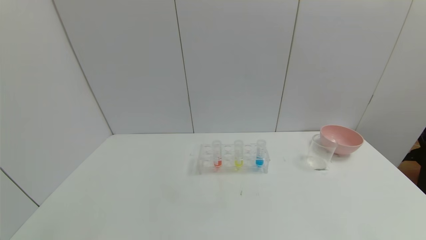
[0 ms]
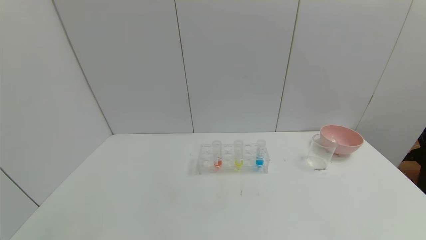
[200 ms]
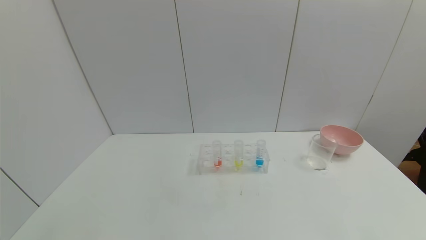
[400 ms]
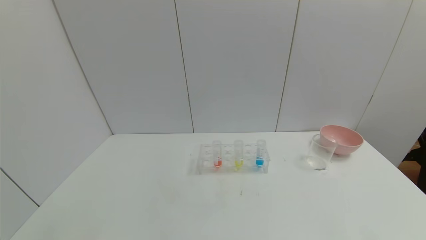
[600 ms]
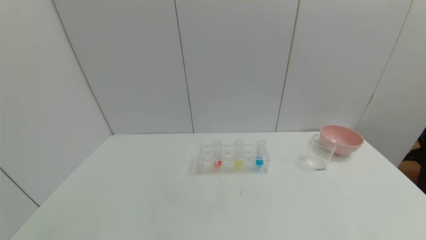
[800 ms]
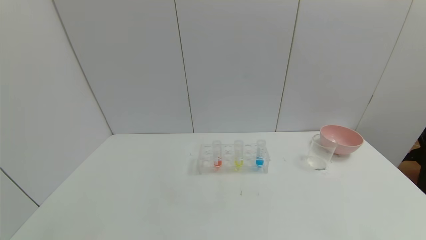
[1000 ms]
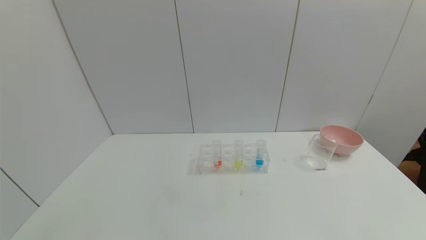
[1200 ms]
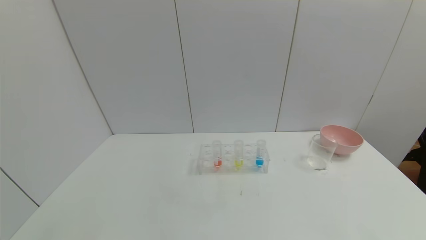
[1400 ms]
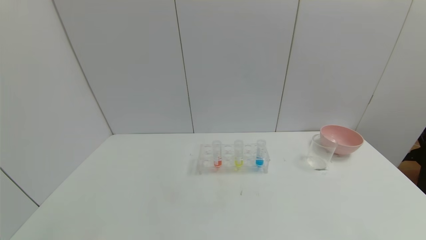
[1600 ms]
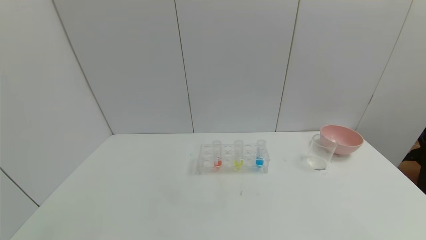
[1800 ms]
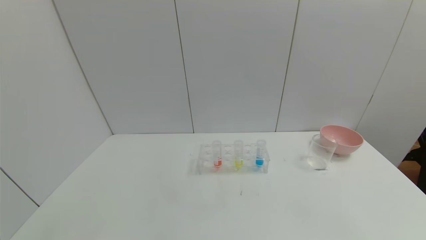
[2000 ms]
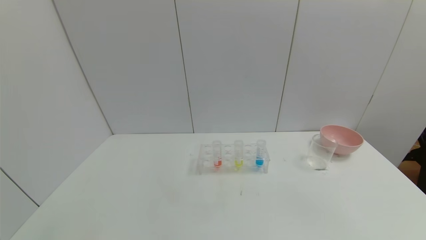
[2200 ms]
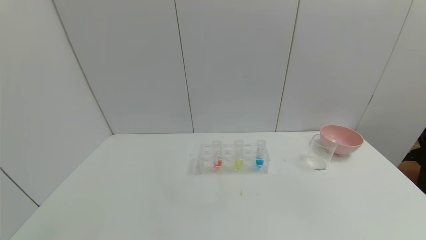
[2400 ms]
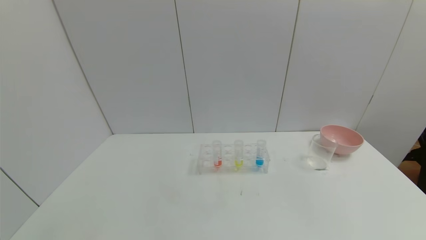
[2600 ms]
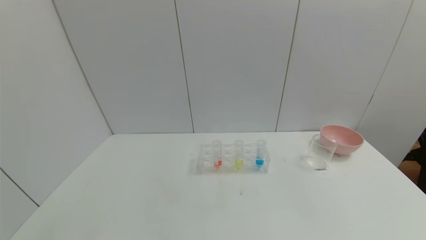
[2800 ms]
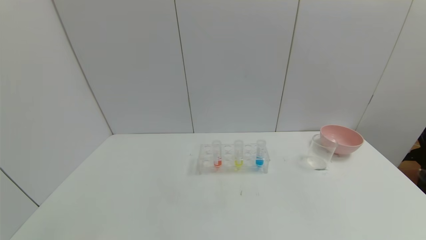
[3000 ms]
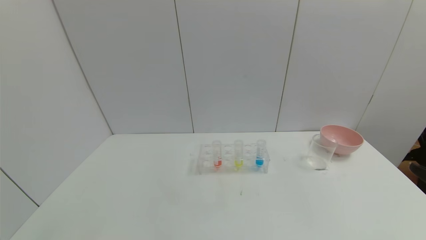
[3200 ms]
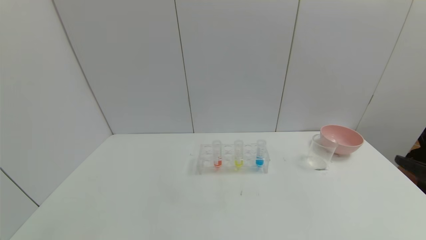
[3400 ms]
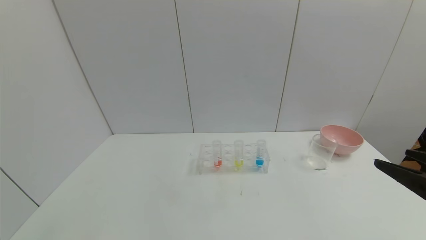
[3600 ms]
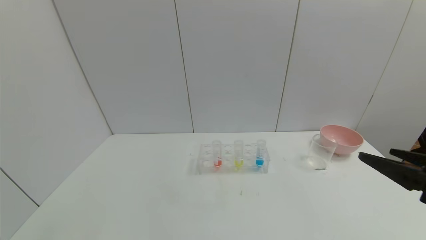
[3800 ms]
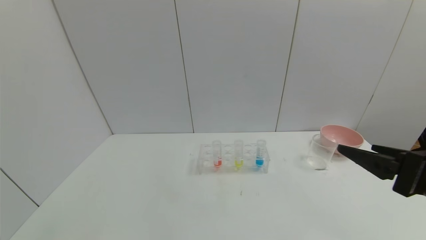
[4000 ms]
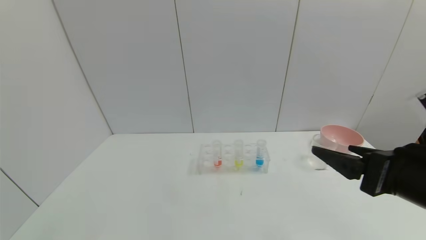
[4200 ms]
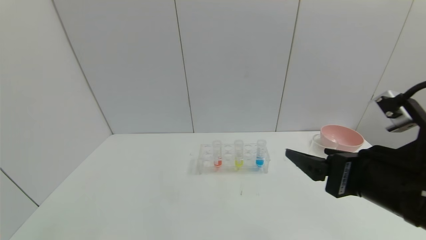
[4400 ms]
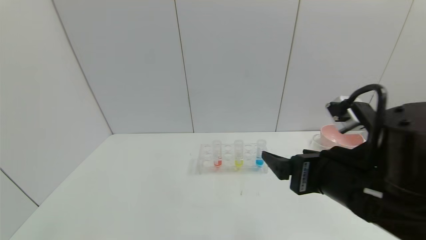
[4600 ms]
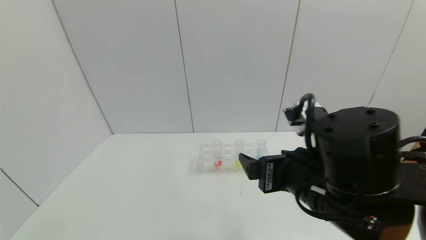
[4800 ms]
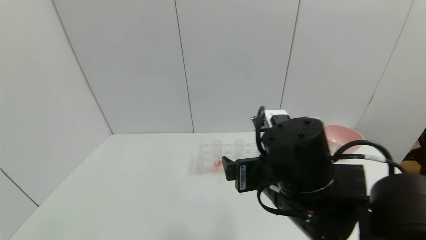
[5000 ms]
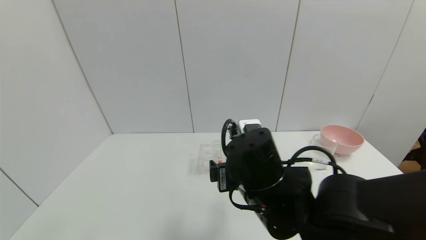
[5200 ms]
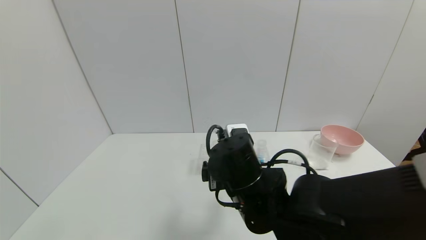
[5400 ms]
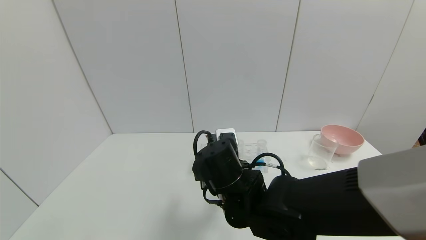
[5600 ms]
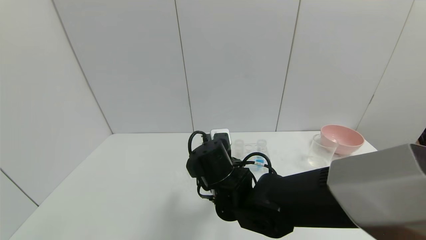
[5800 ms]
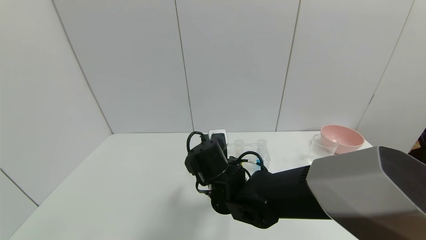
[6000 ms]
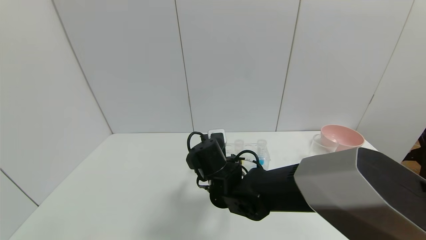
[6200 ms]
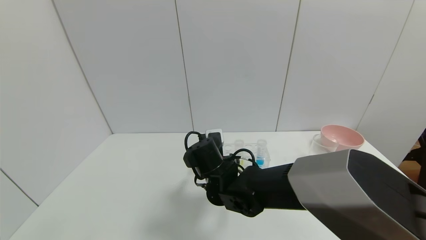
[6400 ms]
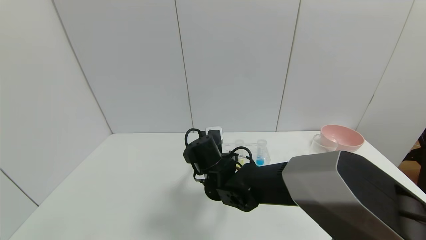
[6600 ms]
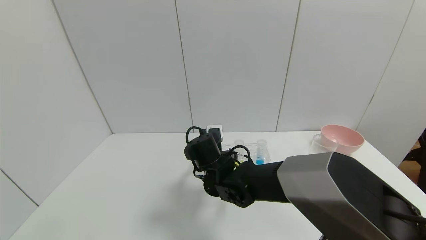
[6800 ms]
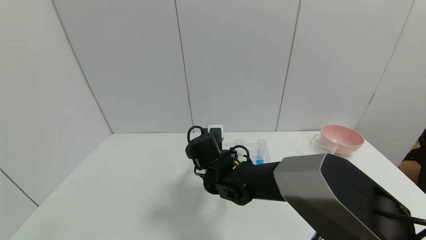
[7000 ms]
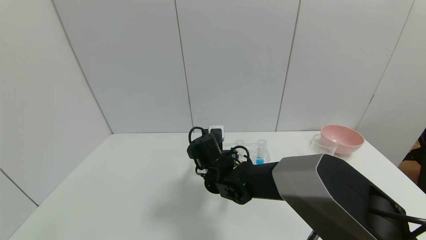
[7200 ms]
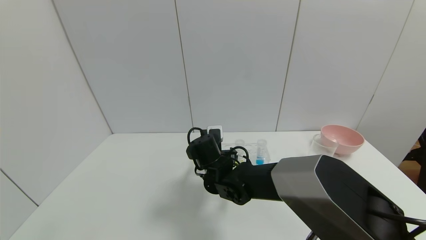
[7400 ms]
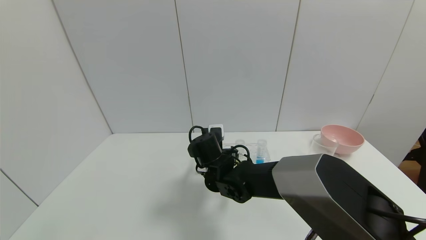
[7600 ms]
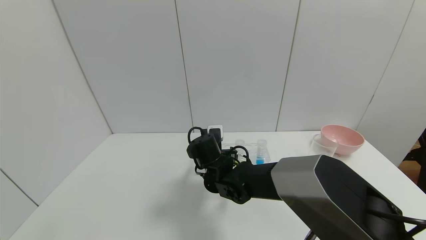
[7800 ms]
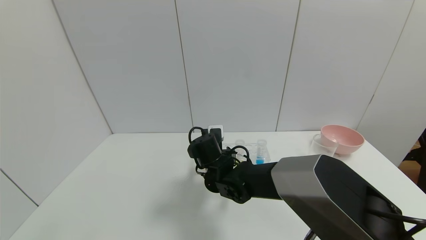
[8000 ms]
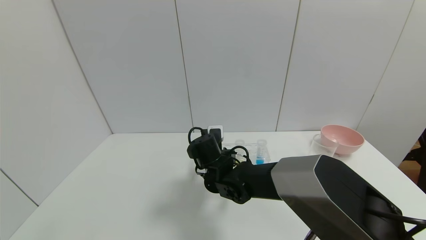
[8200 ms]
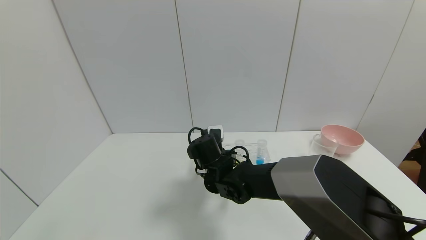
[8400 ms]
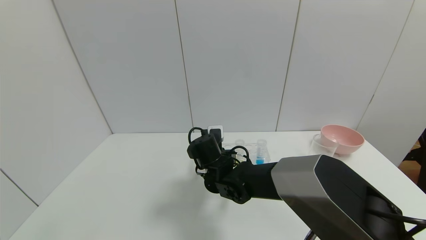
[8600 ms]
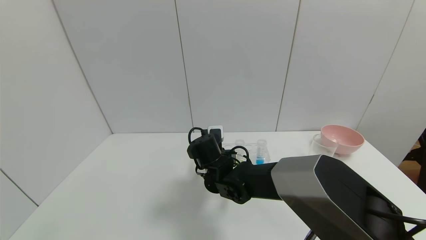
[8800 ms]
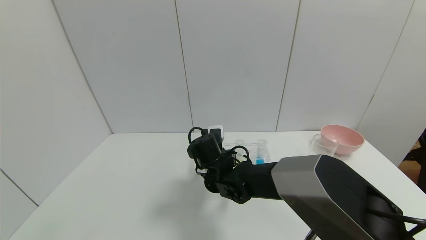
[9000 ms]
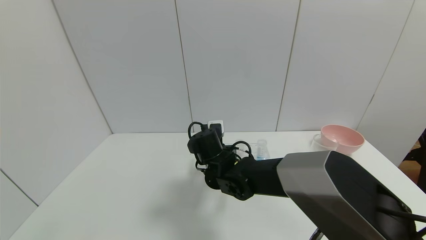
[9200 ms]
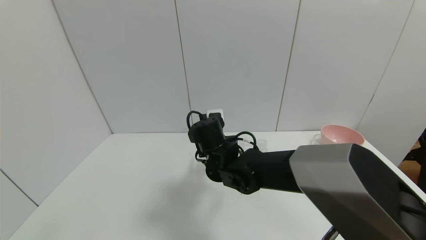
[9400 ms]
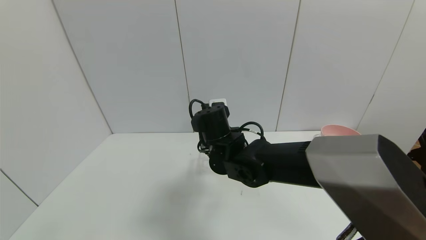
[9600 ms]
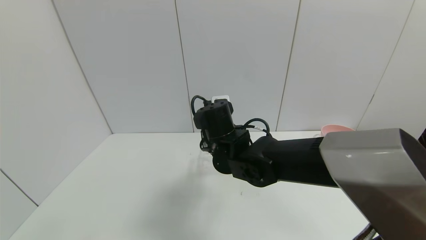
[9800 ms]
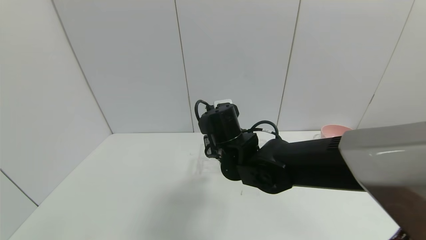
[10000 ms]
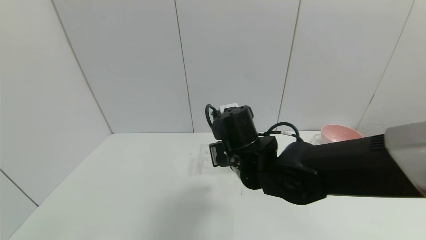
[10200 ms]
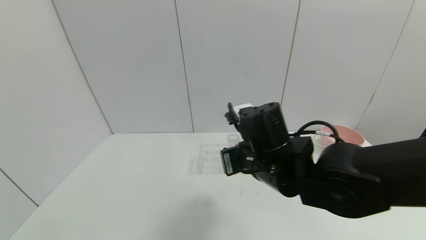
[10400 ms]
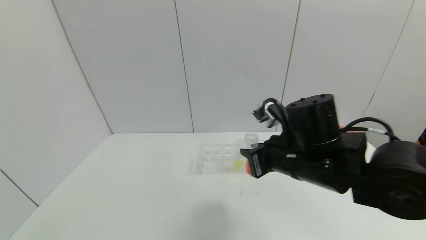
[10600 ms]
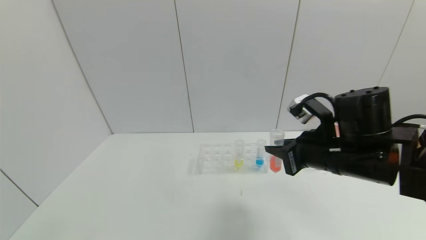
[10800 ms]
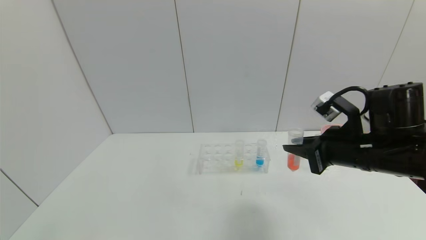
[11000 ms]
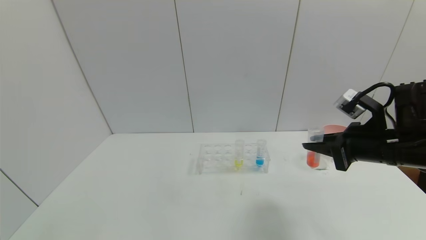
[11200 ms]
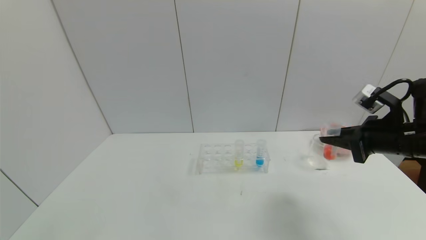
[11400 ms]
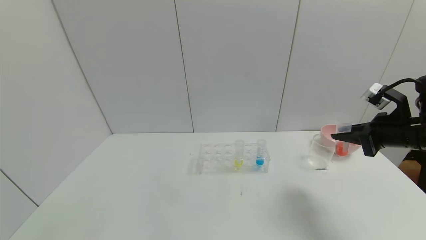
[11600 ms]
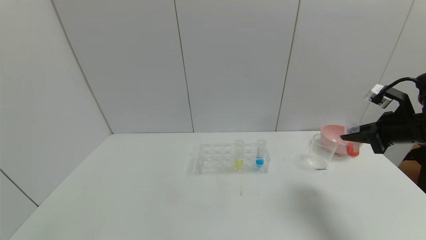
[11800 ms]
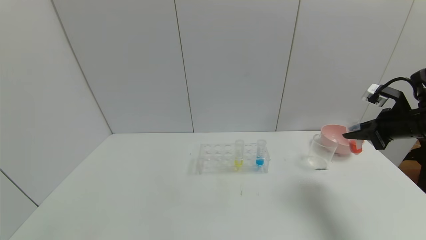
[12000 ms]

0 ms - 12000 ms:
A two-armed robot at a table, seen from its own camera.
Task of the whole recording: pick up the test tube with yellow pigment and the test tube with red pigment by grippers and pour them into the beaker.
Step, 0 ms - 11800 ms: Pick up the test tube containing the red reagent with right gripper.
0 ms - 1600 ms: The two grippers keep their place.
3000 ms - 4400 ms: The right gripper travels to the left and forward by about 15 cm.
4400 ms - 6000 ms: The right gripper shifts about 30 cm to the left, forward and downward.
6000 ms - 7600 ms: The right gripper heads forward, covering about 5 cm.
7600 ms - 9000 ms: The right gripper closes its fingers.
9000 ms - 10400 ms: The right gripper goes some 20 cm upward, to the right and backward.
10400 ms - 12000 ms: The right gripper heads to the right, covering roughly 30 cm.

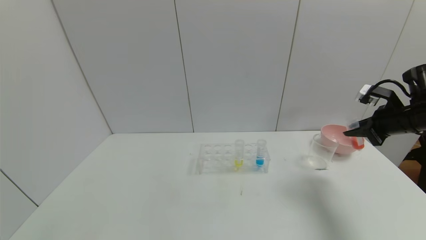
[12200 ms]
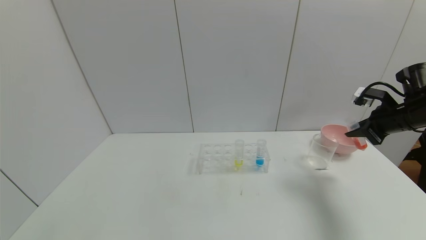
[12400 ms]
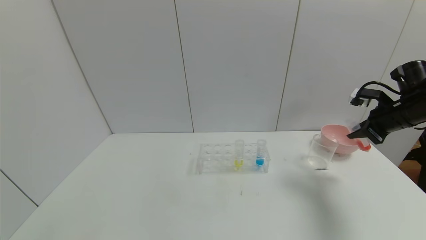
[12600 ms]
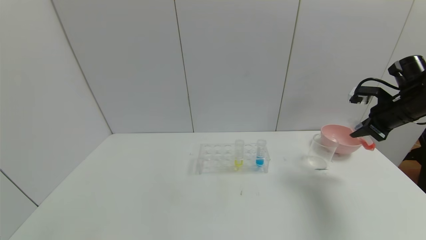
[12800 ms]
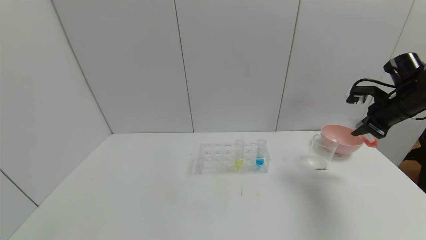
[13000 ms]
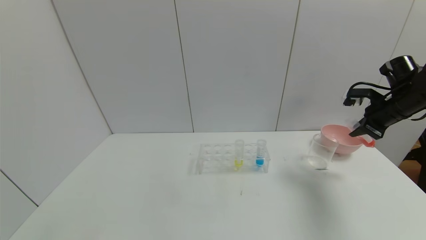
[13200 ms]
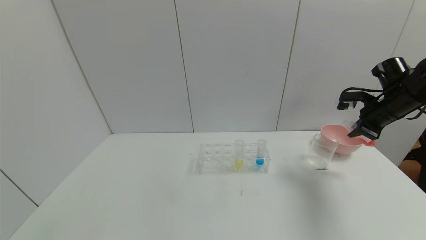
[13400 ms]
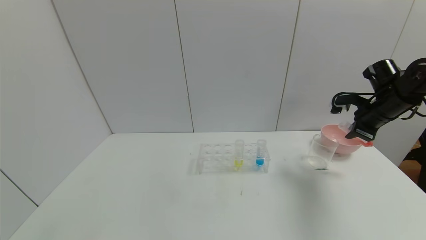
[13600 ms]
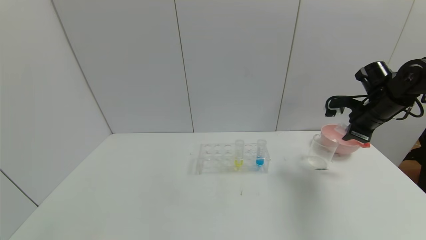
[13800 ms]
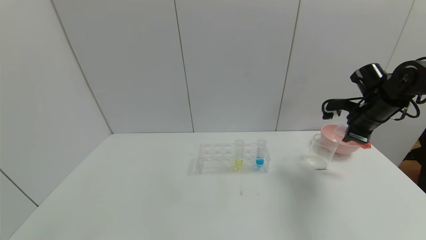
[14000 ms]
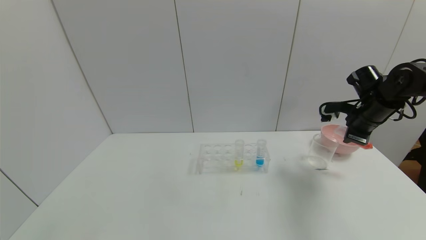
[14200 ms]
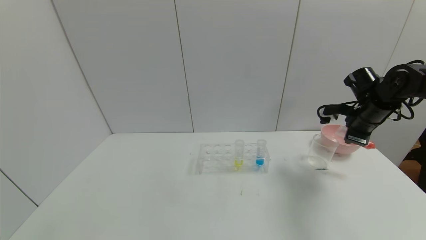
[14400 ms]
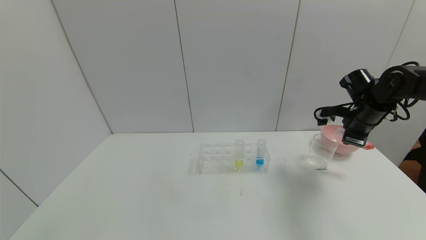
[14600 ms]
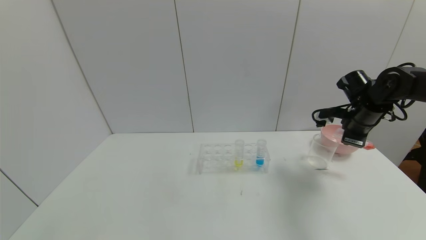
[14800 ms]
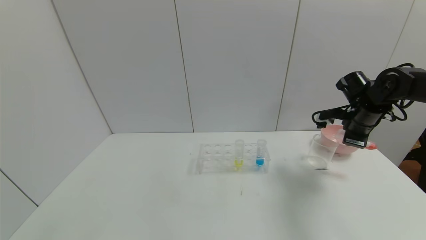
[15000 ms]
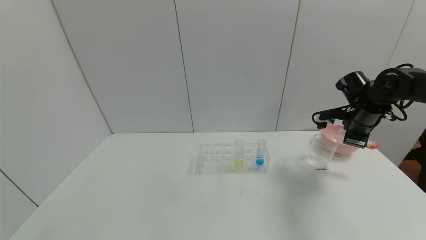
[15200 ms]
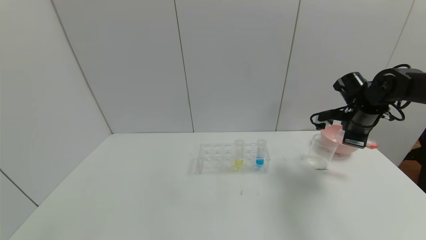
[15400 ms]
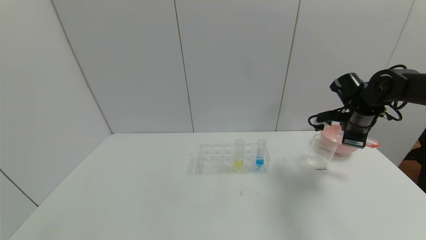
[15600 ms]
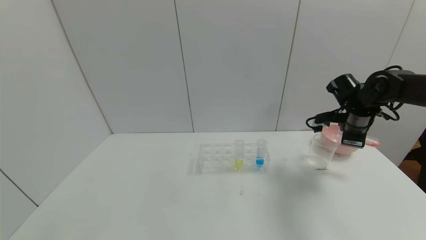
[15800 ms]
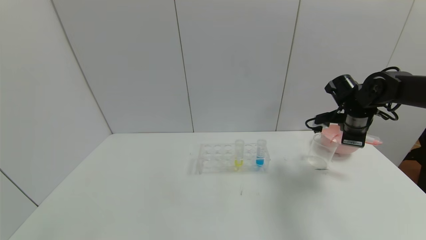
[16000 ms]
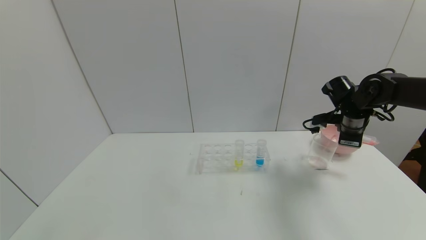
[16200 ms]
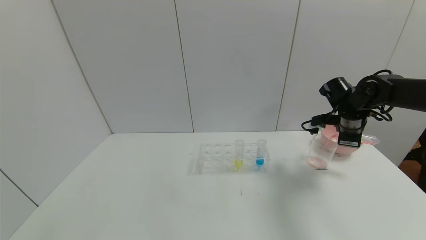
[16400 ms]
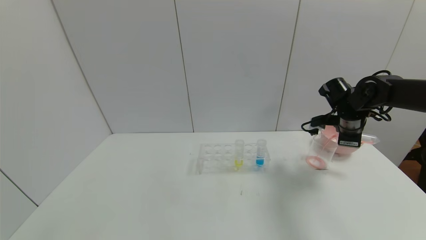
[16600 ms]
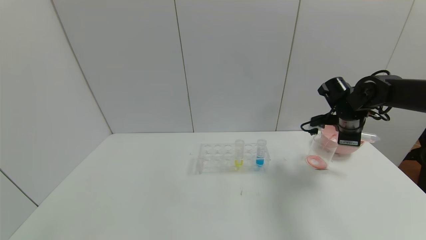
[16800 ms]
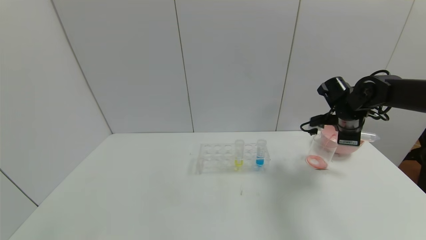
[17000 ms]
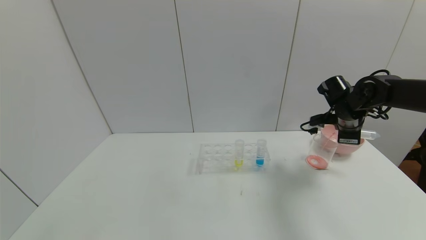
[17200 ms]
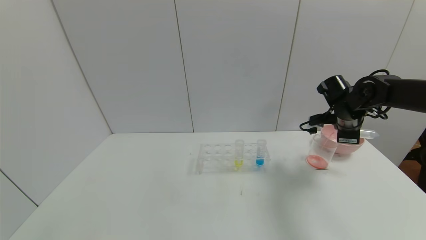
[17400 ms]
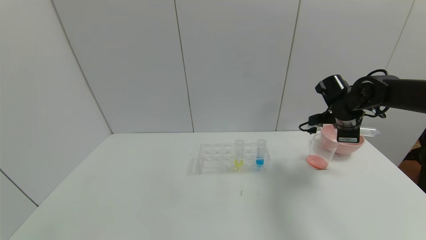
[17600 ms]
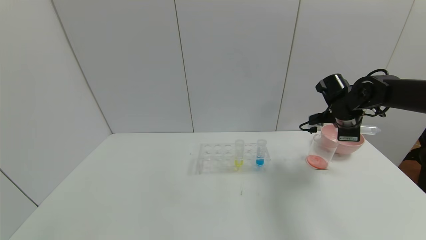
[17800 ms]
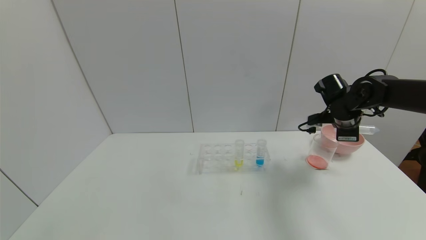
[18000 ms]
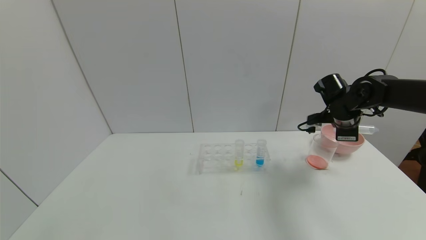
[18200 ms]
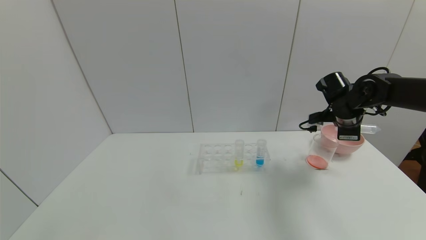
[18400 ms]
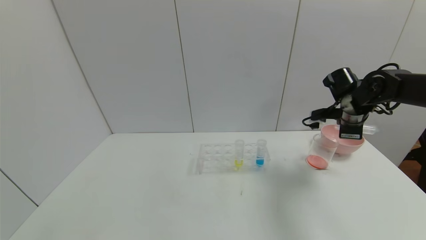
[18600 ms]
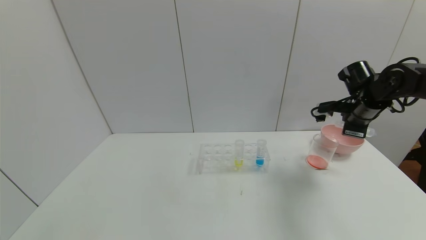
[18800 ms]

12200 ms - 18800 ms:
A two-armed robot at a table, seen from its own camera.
Task of the whole recording: pick up the test tube with yellow pigment and the test tube with red pigment by grippers and pour them into the beaker.
12200 ms - 13800 ms: The right gripper goes approximately 5 cm forward.
13800 ms - 15400 ms: The grippers make only small movements.
15400 ms - 18800 ms: The grippers make only small movements.
